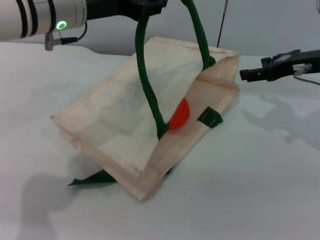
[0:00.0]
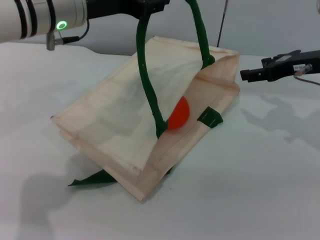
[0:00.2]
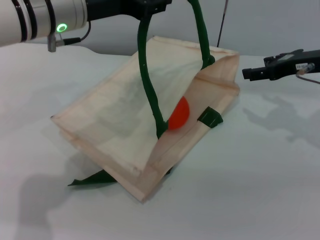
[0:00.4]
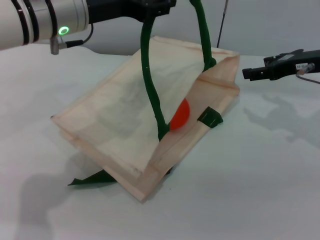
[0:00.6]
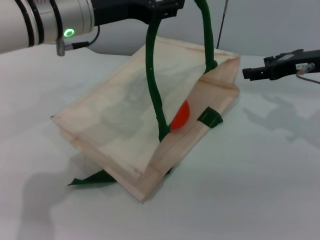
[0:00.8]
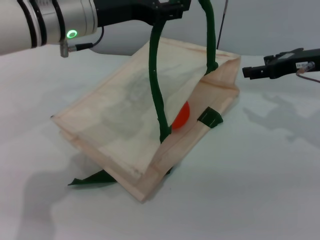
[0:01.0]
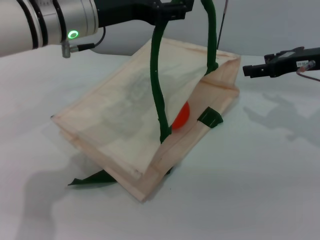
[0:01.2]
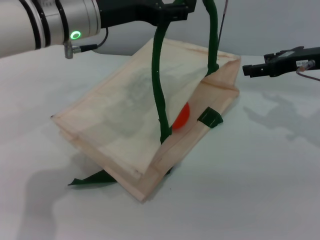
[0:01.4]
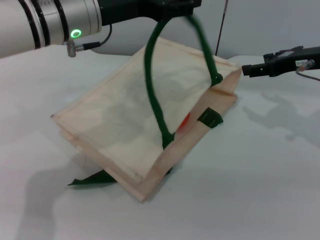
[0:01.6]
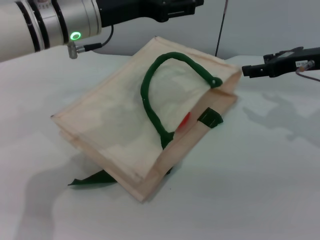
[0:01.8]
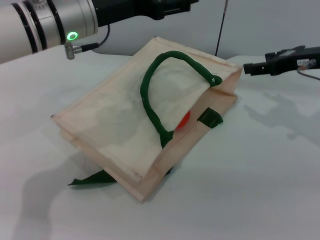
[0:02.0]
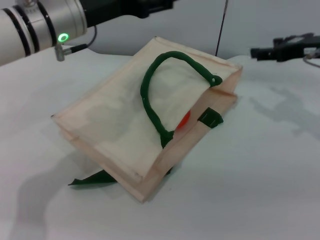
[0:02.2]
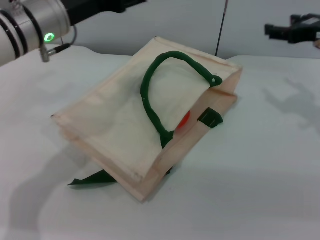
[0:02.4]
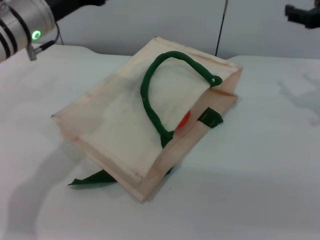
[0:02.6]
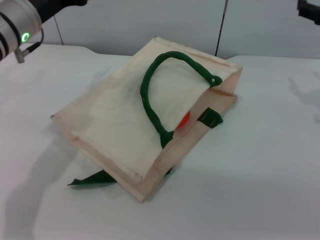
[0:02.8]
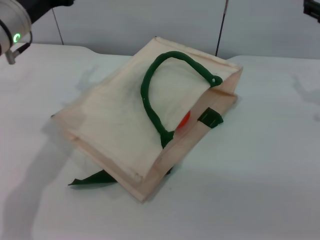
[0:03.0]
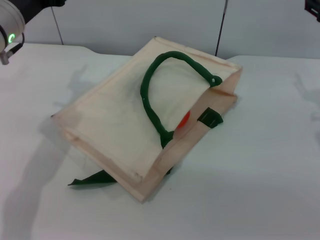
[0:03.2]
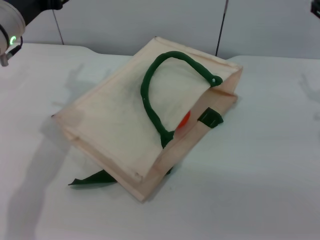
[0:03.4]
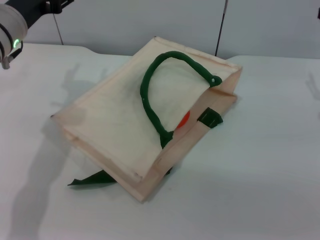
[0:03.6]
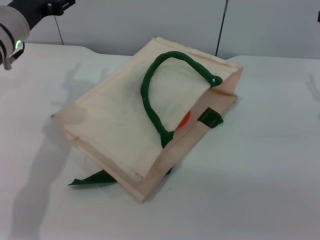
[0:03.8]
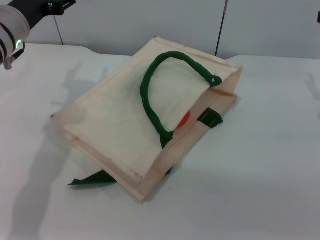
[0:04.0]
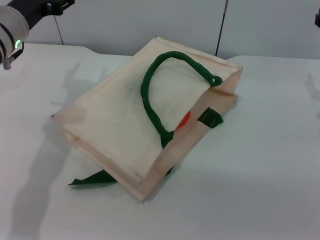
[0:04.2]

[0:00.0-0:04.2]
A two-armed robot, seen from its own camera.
Task of the whole recording: pick up the orange and peach from the table and place it in the white handbag.
Step, 0:00.0 to 0:02.2: Lower the woven bag with the left gripper to close it.
0:00.0 to 0:01.4: The left gripper opens up.
0:01.4 to 0:02.8: The left gripper shifts some 5 cm to the left.
0:02.8 to 0:04.2: The grippers make only small movements.
